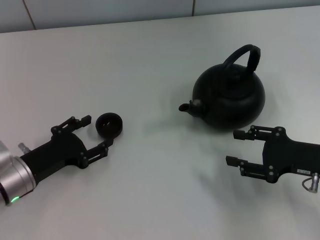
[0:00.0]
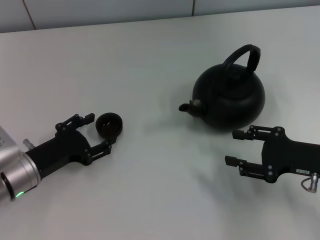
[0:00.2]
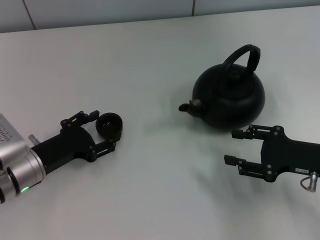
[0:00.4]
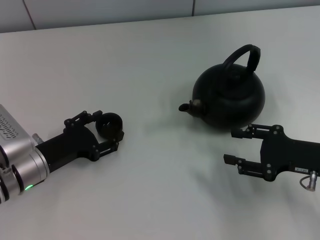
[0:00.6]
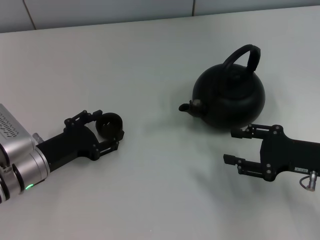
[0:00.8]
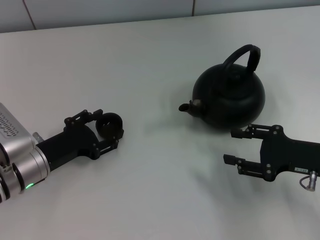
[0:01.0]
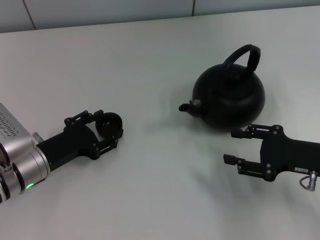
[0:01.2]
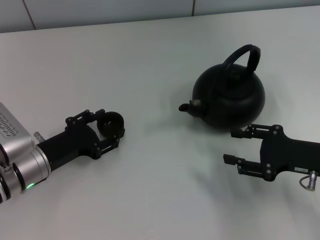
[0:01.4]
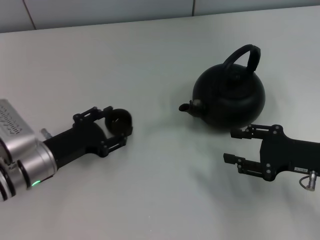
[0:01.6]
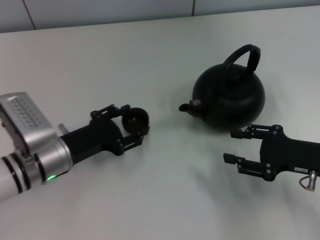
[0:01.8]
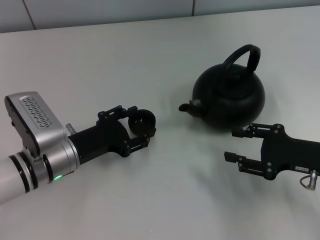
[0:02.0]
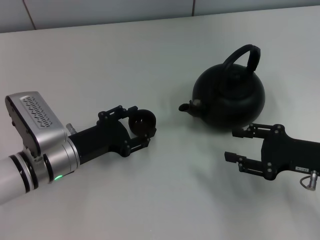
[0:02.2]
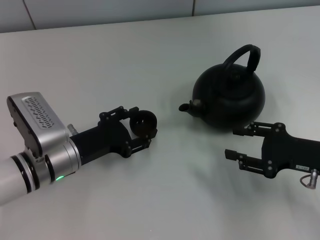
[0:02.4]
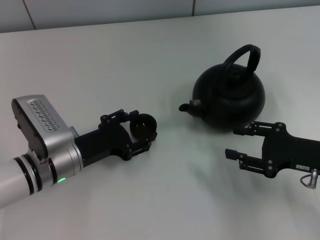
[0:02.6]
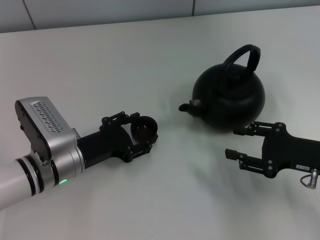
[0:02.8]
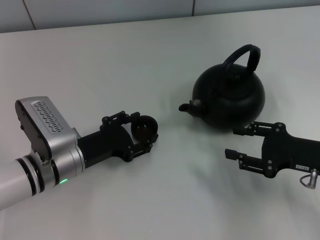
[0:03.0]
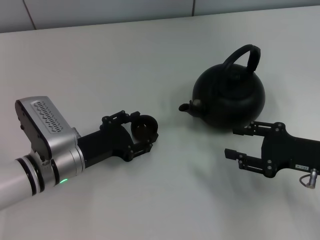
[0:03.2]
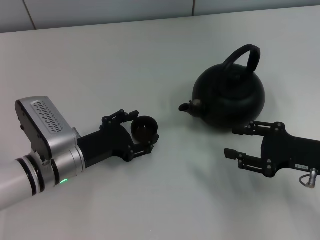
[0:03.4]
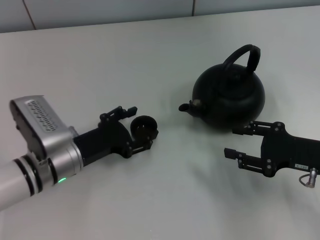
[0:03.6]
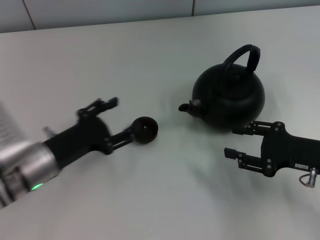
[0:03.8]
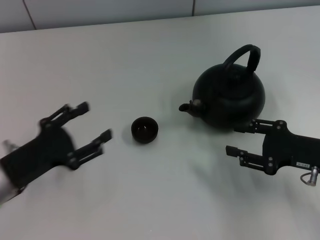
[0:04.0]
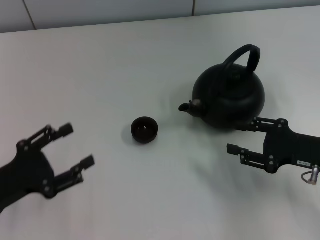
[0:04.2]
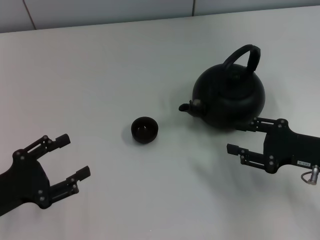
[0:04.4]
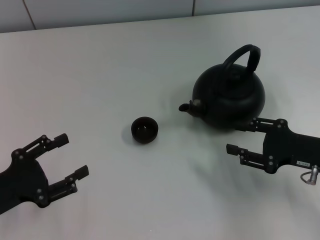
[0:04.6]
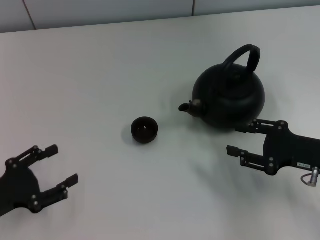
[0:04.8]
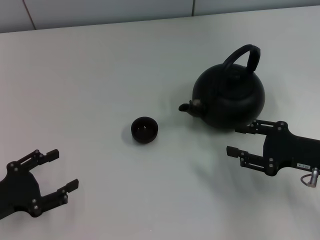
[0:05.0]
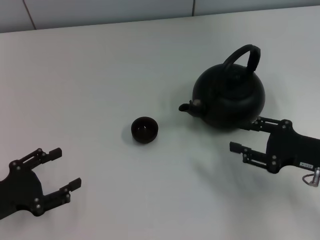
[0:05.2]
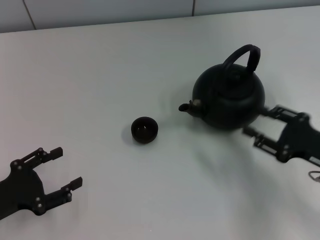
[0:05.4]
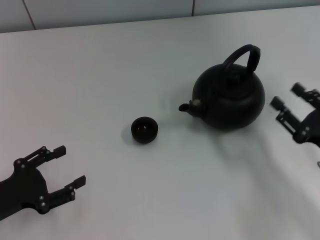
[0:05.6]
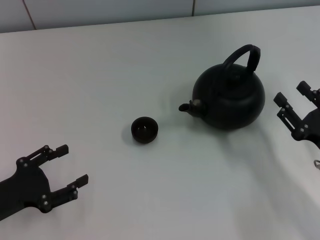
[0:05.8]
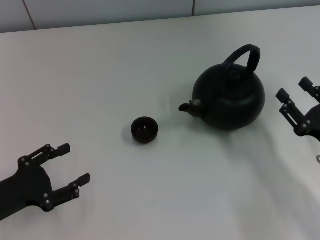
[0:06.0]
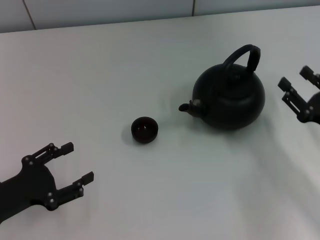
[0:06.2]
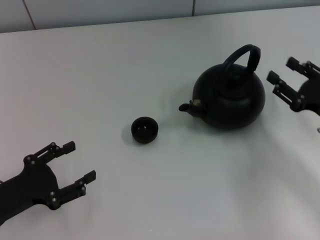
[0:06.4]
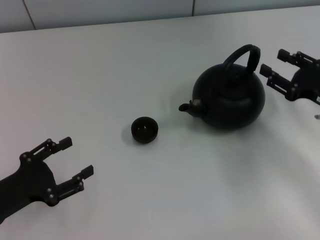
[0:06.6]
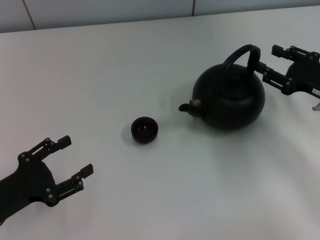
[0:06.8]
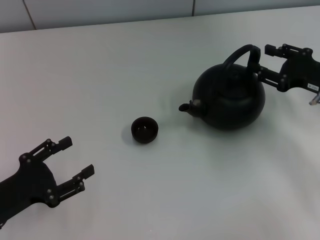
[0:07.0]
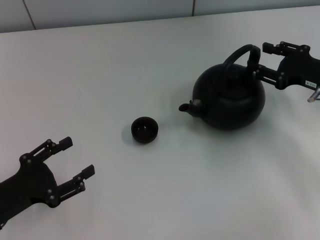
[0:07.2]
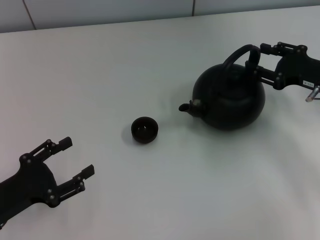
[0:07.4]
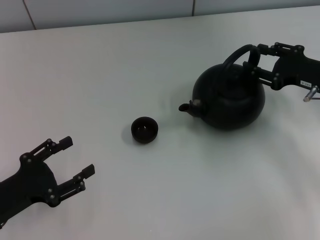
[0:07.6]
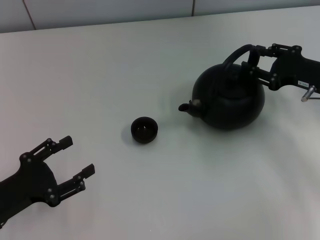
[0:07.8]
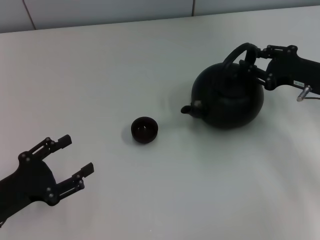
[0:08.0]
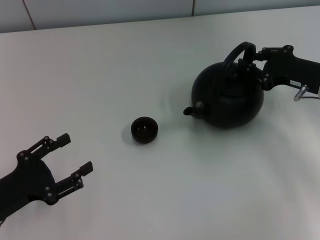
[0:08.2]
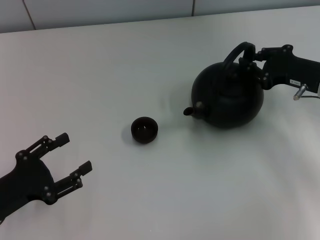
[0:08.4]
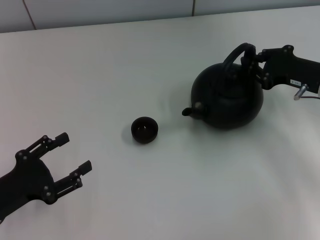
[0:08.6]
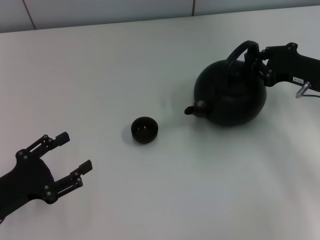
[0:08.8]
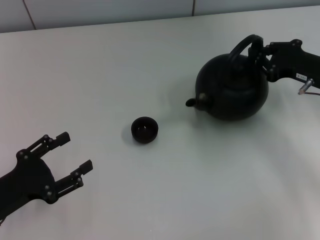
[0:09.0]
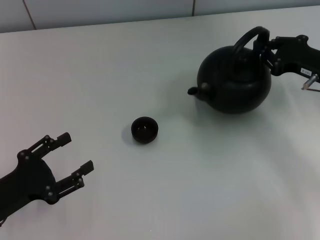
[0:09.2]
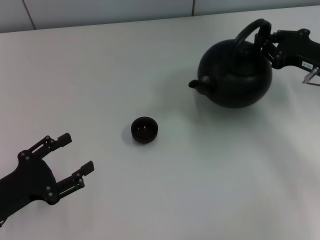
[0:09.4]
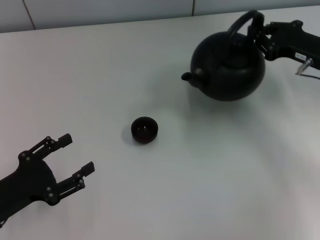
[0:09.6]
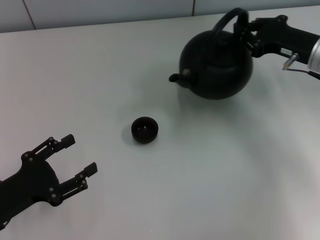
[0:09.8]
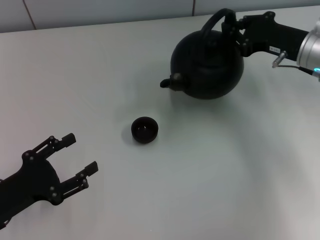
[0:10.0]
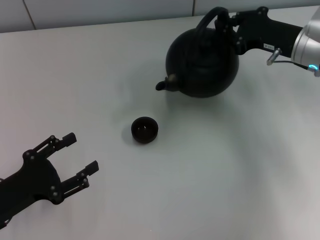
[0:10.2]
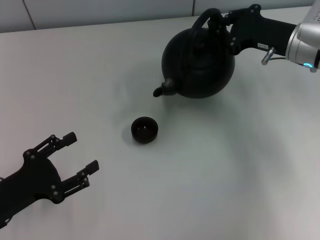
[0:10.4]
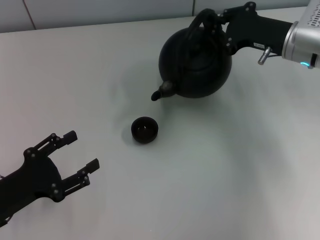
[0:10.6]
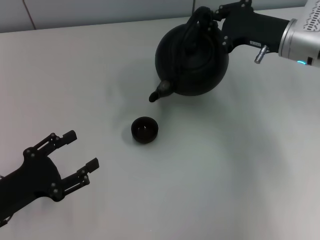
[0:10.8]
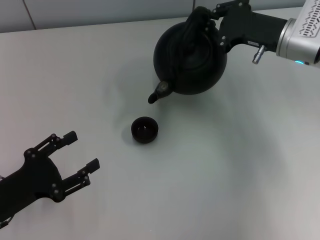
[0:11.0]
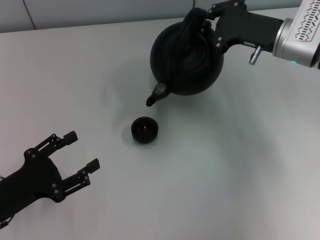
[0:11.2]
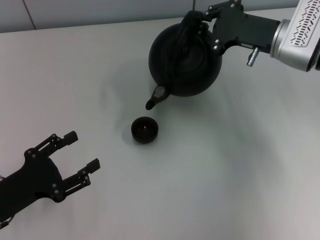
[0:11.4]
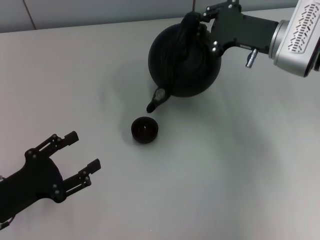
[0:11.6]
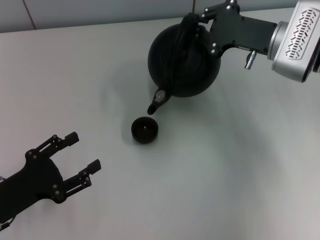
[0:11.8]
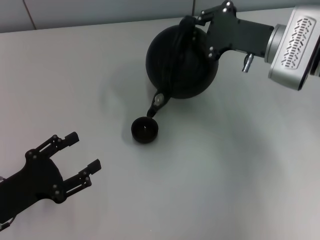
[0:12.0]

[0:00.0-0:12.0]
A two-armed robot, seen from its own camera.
Task of the whole recording: Grasp the handle of the teapot with one hand and pour tea into the teacup.
Step, 0:01.8 to 0:03.6: Place the teacup in the center of view with the left gripper.
Step, 0:03.8 to 0:09.4: Pick up the teapot with the right gripper.
0:00.0 to 0:01.6: The grippers make only small movements.
0:01.6 to 0:03.0: The grippers move only a little.
0:03.0 to 0:04.4: The left gripper is displaced to the left and backward by some 15 cm.
0:06.0 to 0:07.6: The right gripper moves forward and upward, approximately 15 cm.
0:07.6 to 0:09.0: The right gripper closes.
0:09.0 to 0:10.4: The right gripper heads to the left and forward, covering some 10 cm.

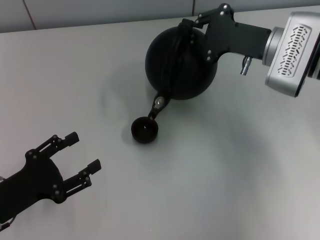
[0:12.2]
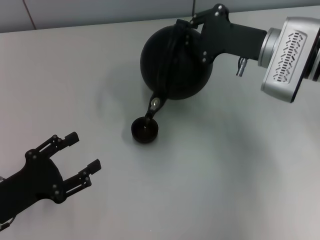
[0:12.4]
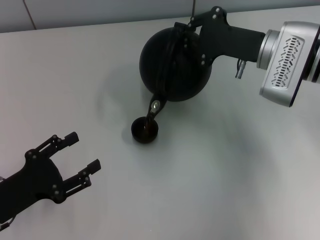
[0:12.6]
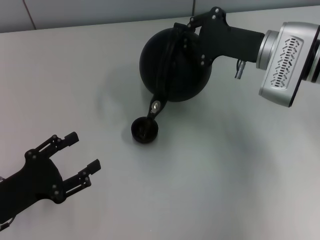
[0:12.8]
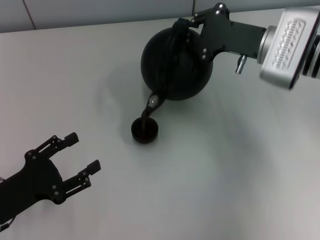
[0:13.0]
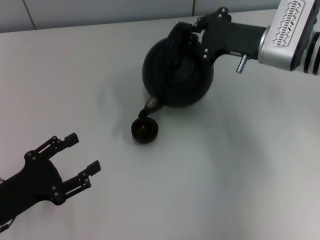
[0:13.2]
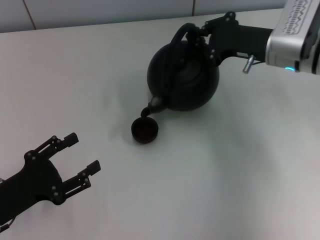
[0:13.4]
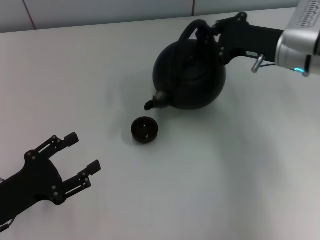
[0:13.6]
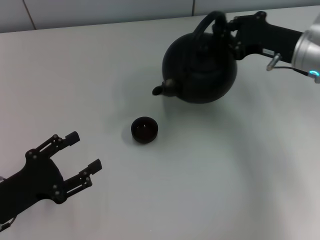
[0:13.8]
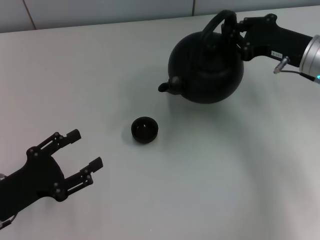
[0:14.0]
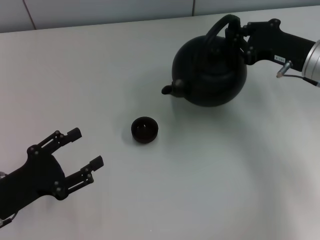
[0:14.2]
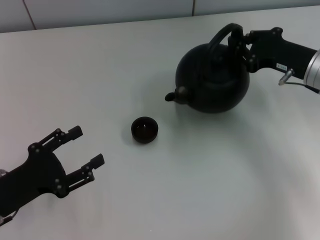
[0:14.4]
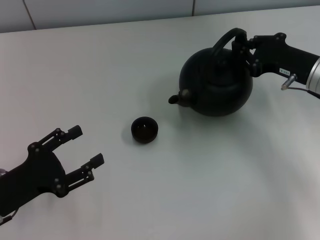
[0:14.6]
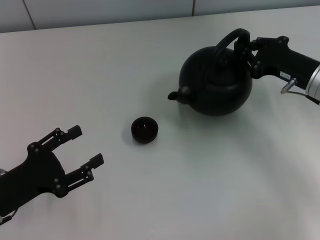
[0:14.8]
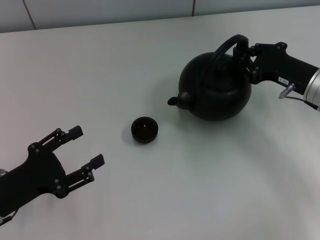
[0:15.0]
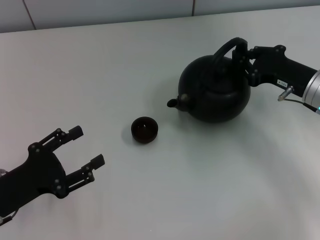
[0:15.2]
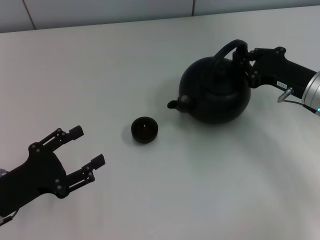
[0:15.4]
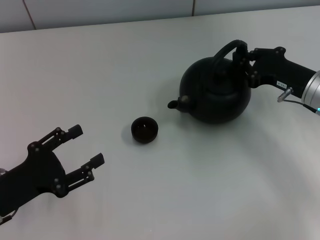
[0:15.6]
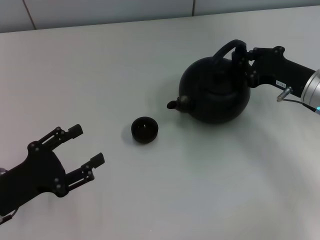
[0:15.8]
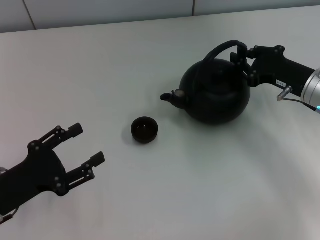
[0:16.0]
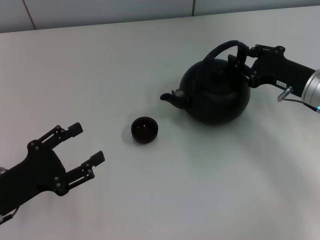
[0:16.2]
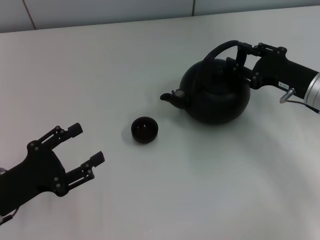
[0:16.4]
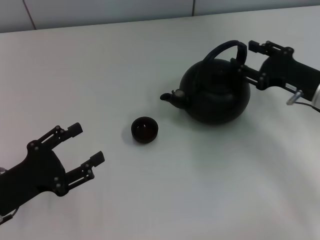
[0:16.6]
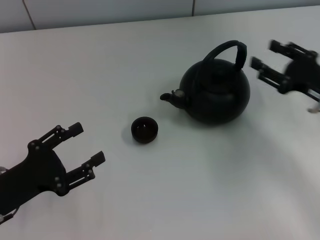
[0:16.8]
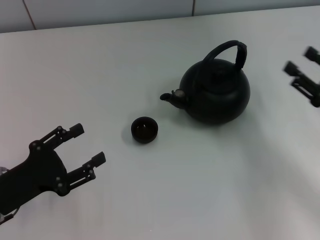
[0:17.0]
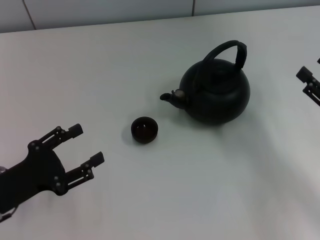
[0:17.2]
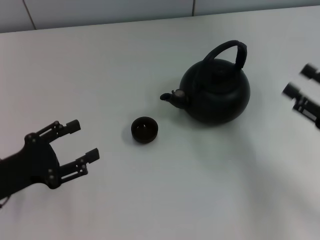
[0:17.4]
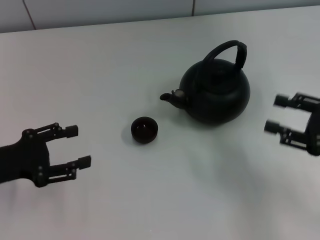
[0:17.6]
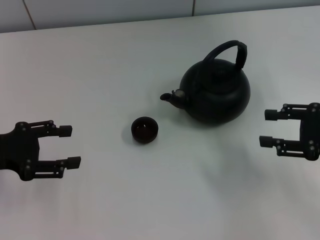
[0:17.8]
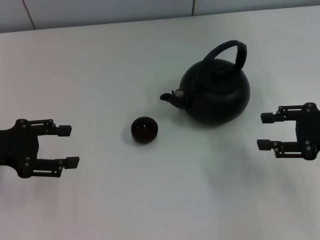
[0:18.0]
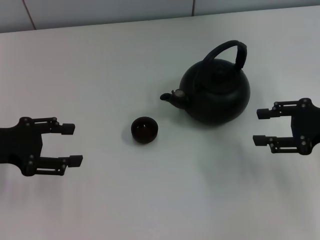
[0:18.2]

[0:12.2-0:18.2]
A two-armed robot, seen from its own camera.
Task of the whole recording: Grasp the handle of the teapot with one hand and pour tea into the teacup.
Step, 0:13.8 to 0:16.6: Put down the teapot with the right gripper.
0:13.8 to 0:15.2: The right gripper shifts by about 5 cm.
0:15.2 to 0:16.6: The right gripper opens its fingers.
0:16.6 to 0:18.2: The left gripper shifts about 10 cm forward and upward.
